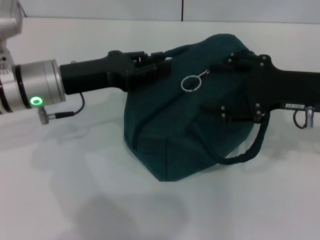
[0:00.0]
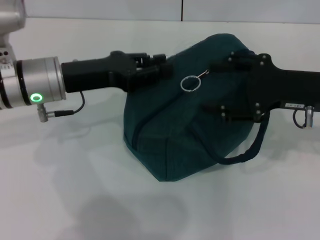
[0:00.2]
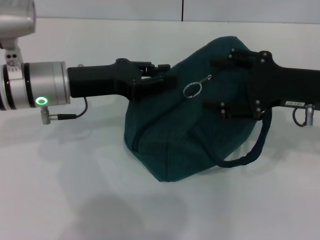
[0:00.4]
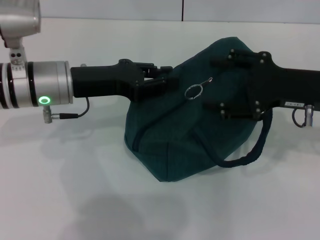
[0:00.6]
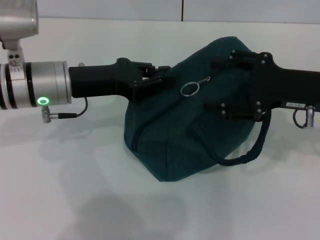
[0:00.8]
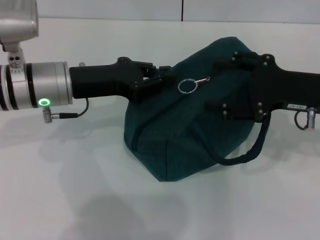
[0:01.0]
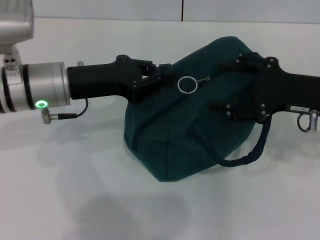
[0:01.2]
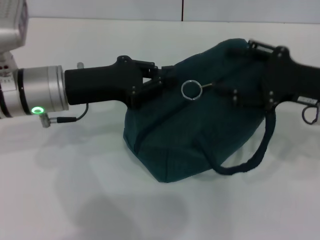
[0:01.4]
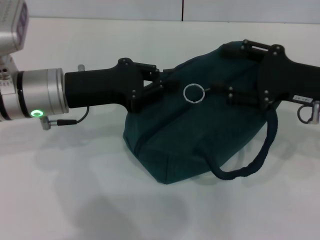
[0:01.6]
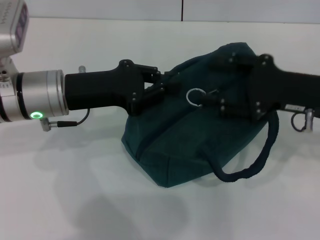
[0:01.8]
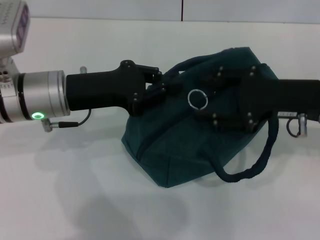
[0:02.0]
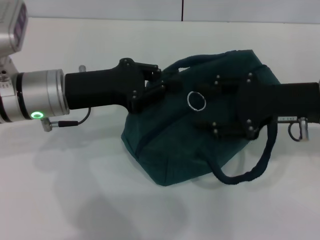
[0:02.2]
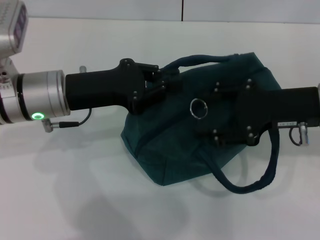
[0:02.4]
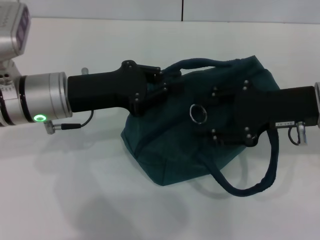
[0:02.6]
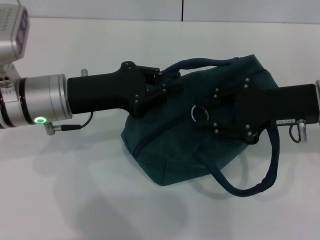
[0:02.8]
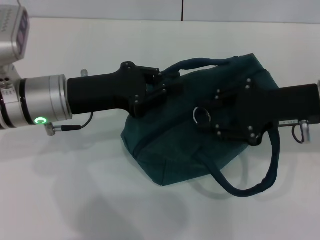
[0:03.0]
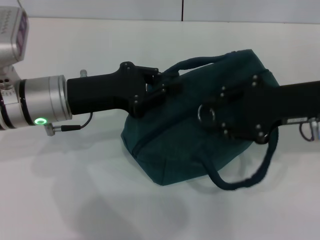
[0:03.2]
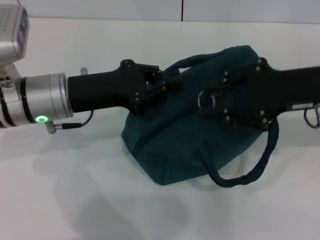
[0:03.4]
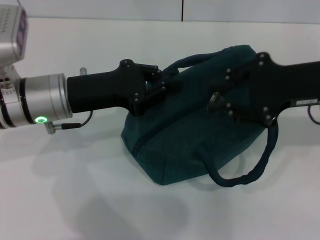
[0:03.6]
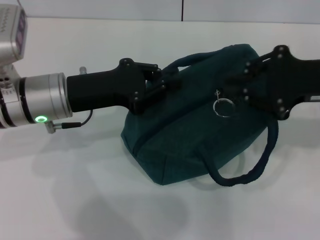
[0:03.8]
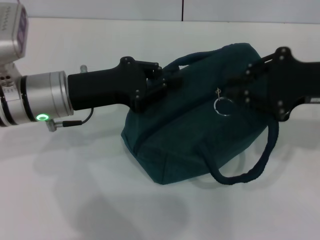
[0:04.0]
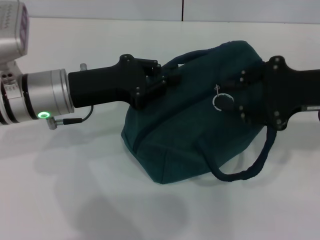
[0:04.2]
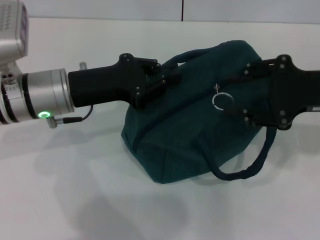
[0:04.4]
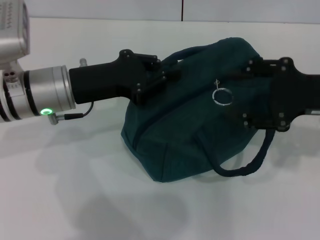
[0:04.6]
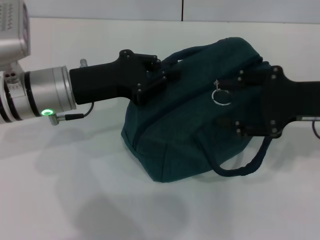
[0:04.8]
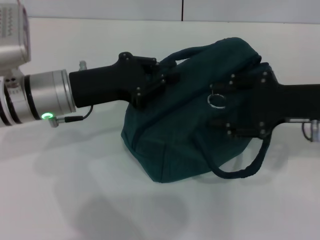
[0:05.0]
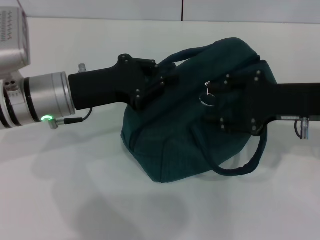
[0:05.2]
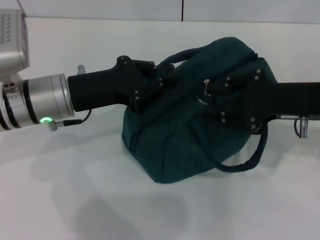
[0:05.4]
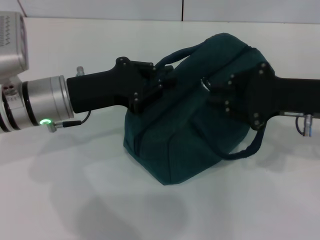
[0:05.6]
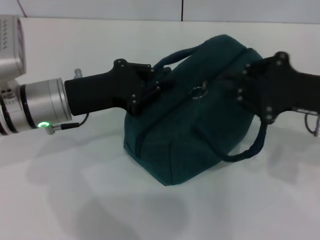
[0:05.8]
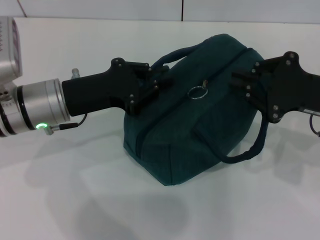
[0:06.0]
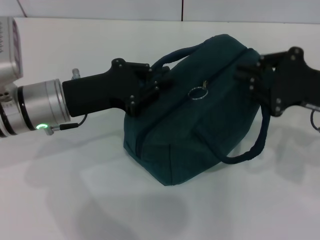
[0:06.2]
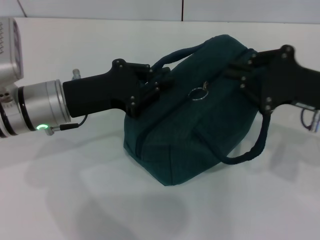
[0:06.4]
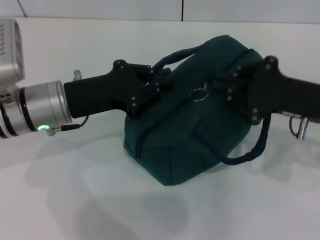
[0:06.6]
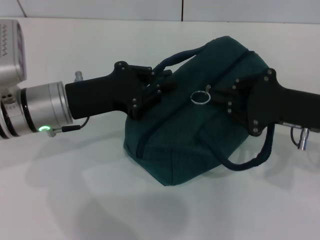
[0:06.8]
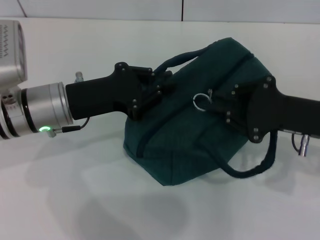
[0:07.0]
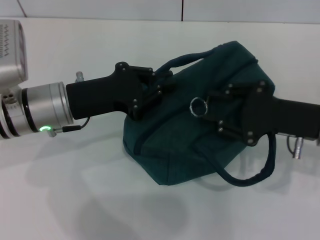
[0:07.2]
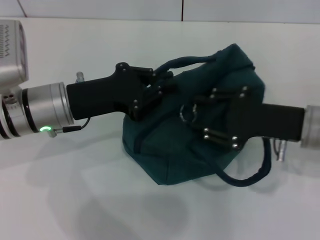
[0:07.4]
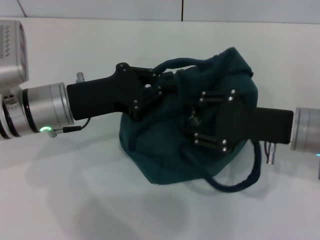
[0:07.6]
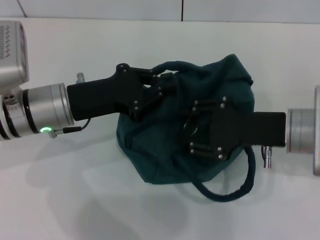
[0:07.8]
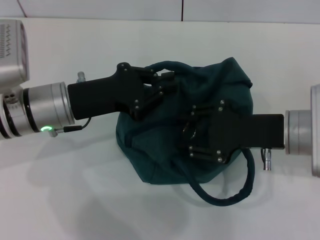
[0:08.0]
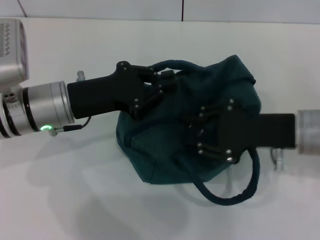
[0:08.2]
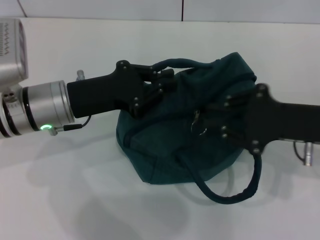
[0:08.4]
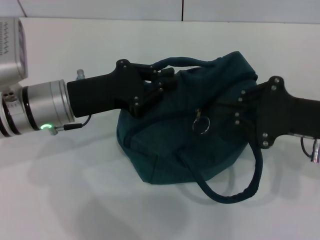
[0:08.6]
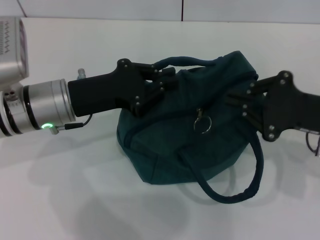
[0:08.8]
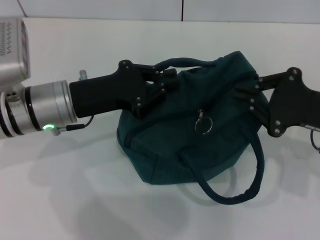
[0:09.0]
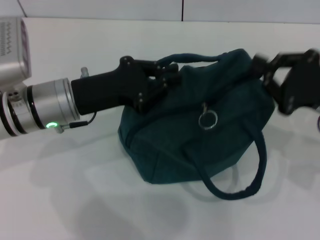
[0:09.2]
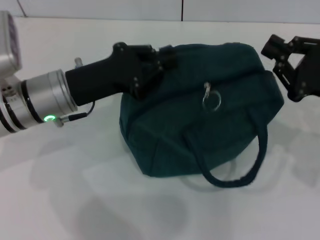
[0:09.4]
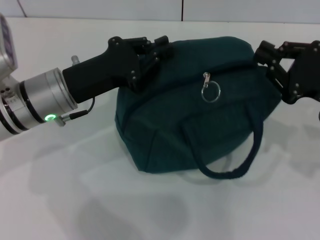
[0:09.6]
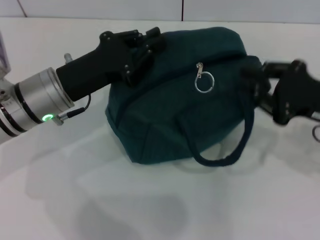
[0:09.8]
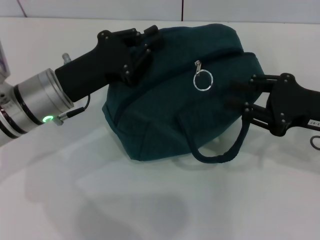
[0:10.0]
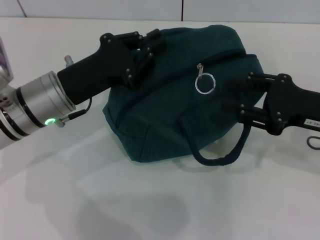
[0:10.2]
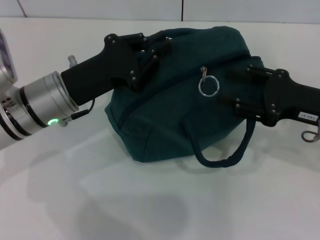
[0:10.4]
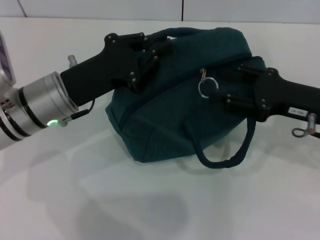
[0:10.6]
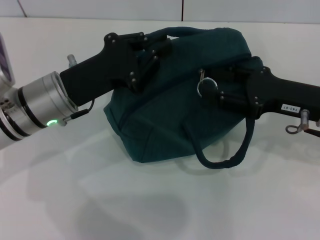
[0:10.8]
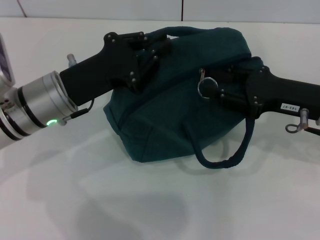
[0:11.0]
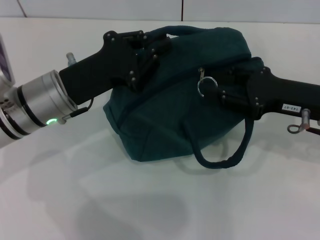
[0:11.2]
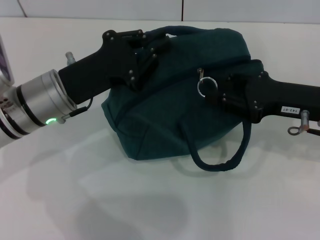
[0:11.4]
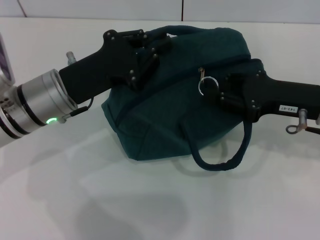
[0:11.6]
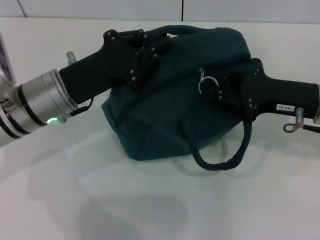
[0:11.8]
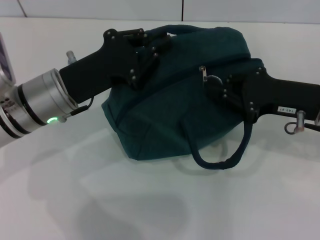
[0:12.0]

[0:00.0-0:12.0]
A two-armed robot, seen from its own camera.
0:00.0 to 0:01.6: There are only small adjustments of the grippers.
0:01.6 to 0:03.0: The right gripper closes.
0:03.0 to 0:04.4: The grippers move only a little.
0:04.4 to 0:06.0: The right gripper opens, then closes again.
0:06.0 to 0:07.6: The right gripper is displaced to the left by roughly 5 cm, and opens up.
0:07.6 to 0:09.0: The right gripper moves to the right, approximately 5 cm, and closes up.
0:09.0 to 0:10.4: The right gripper opens its fingers.
0:10.4 to 0:12.0: The right gripper closes up.

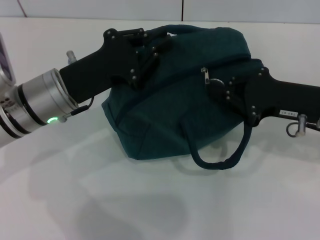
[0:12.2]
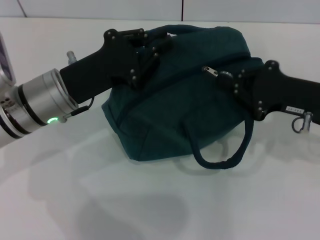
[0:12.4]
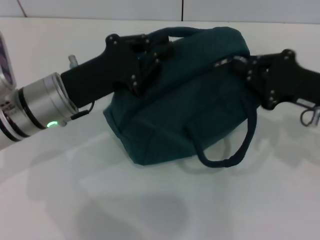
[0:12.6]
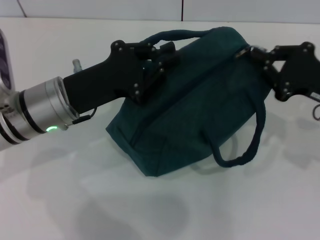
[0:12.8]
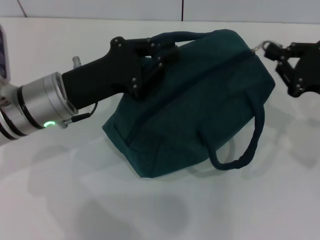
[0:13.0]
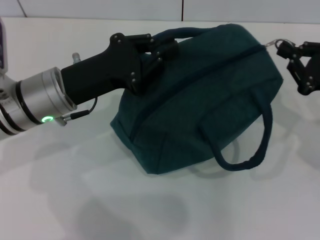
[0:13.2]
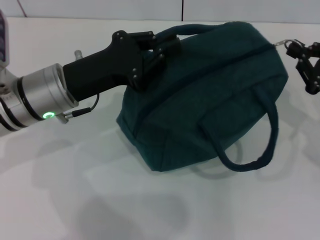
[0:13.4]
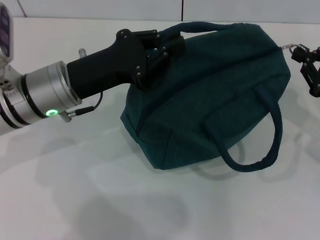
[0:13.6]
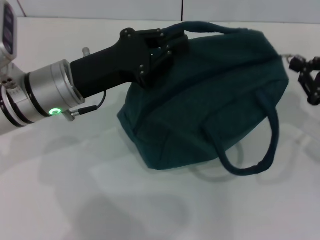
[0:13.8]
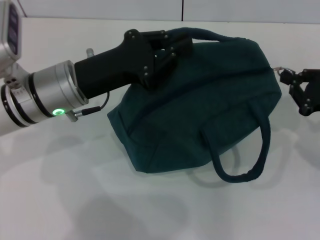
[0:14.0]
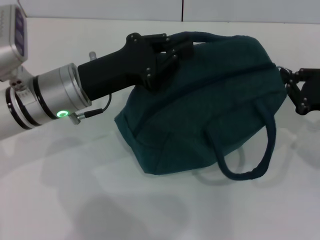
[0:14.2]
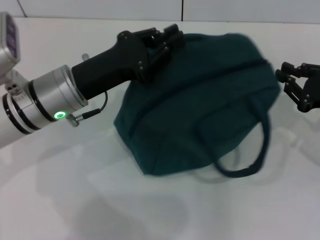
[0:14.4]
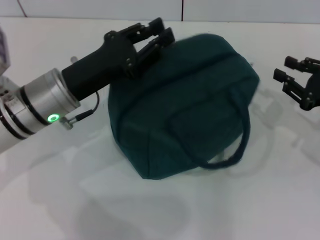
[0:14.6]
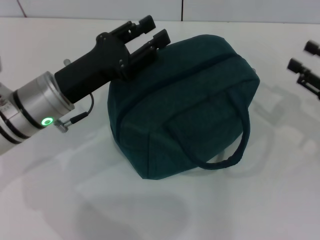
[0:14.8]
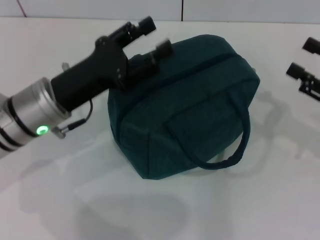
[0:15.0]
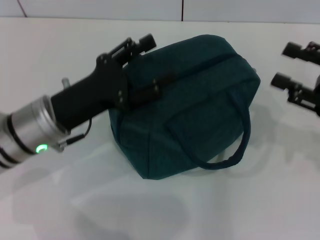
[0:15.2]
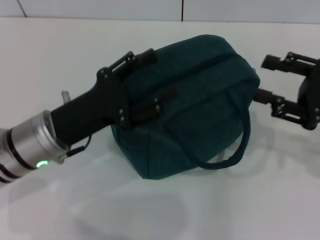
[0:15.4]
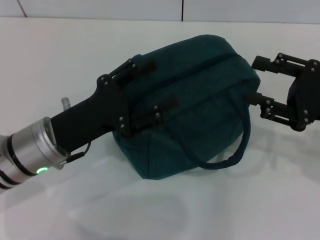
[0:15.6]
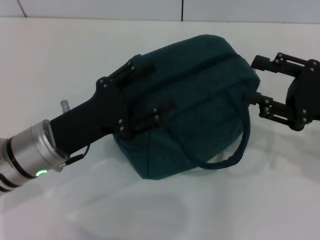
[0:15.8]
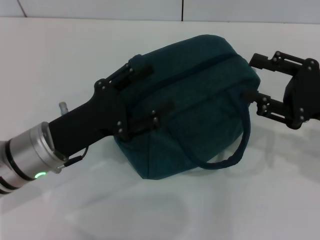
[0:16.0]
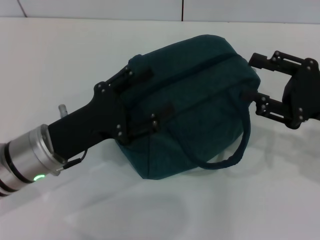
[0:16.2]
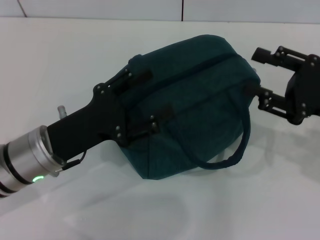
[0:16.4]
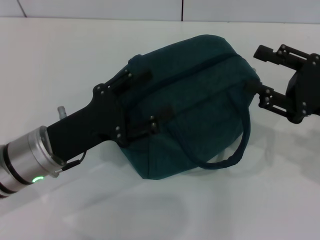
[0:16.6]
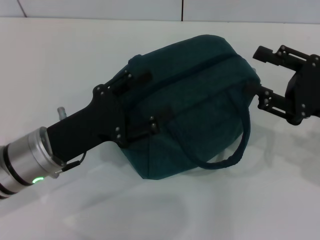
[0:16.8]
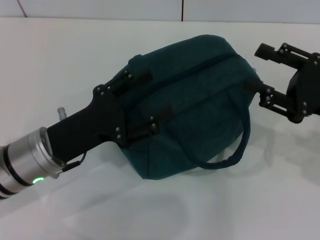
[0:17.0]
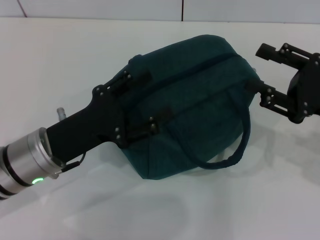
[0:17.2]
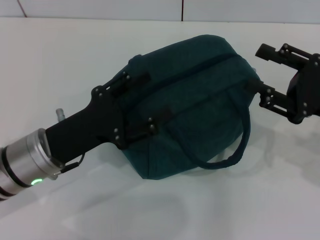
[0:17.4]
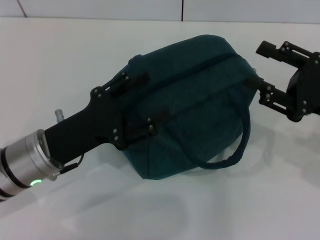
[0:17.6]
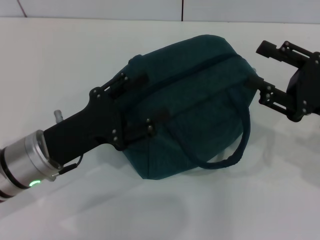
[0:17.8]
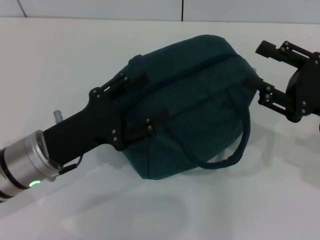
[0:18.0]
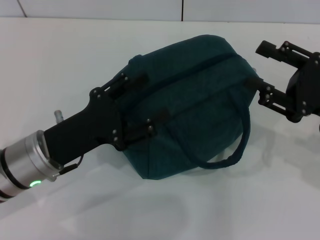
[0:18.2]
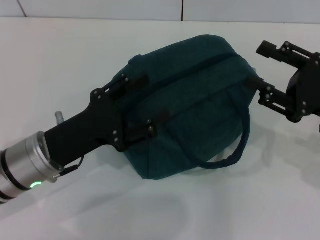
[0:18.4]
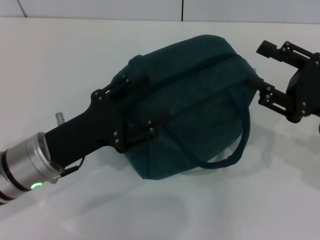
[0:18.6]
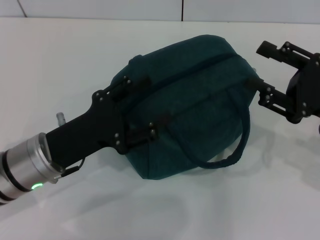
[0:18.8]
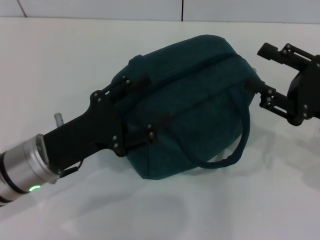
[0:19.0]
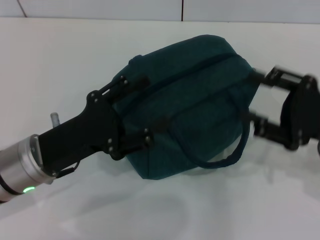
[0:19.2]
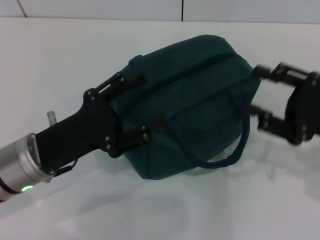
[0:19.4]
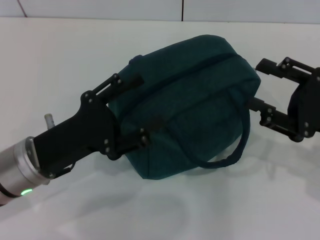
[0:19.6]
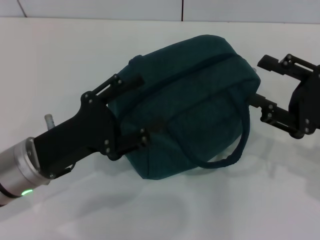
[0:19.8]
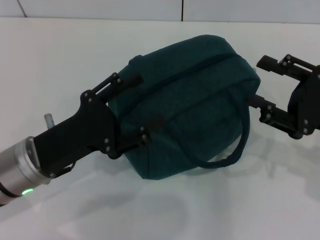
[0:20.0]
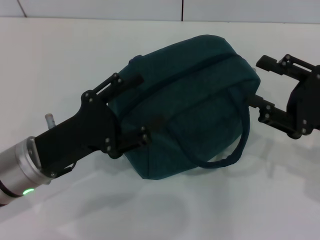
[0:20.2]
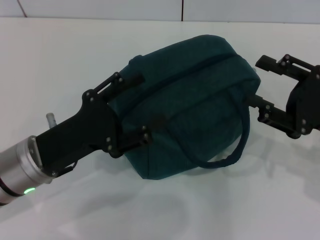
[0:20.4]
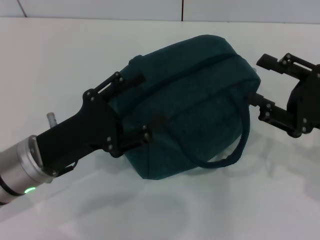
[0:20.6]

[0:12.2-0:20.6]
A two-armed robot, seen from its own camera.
Step, 0:12.2 to 0:14.4: Hold the lunch bag with your left hand.
0:12.2 to 0:13.6: The right gripper goes roughly 10 cm to the right.
0:13.6 to 0:15.0: The left gripper opens up; the right gripper opens its fingers.
0:15.0 to 0:16.4: The left gripper moves about 5 cm, and opens up; the right gripper moves to the left, about 5 cm.
0:16.4 to 0:17.8: Both grippers stay put.
0:17.8 to 0:20.6: The grippers stay close to where they were, moving slightly.

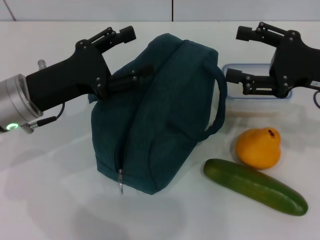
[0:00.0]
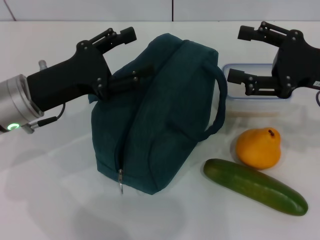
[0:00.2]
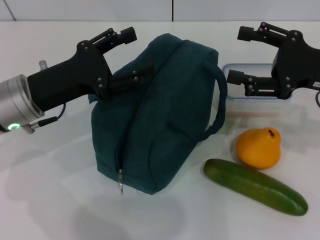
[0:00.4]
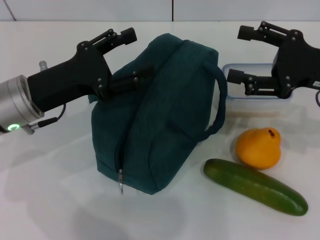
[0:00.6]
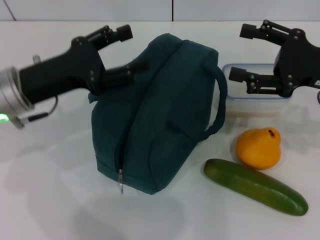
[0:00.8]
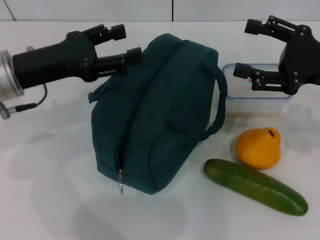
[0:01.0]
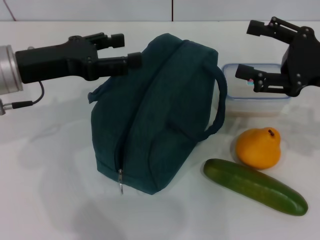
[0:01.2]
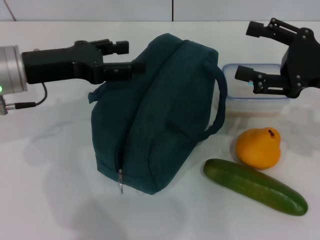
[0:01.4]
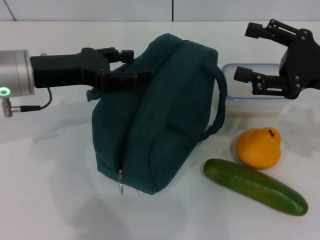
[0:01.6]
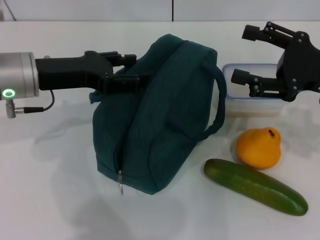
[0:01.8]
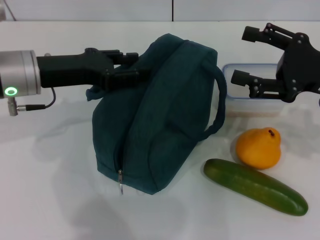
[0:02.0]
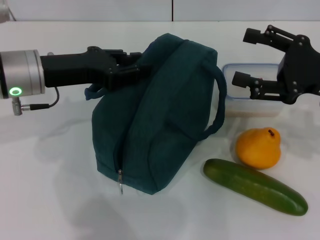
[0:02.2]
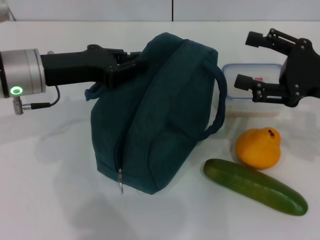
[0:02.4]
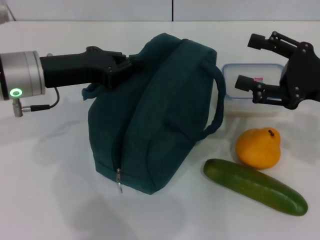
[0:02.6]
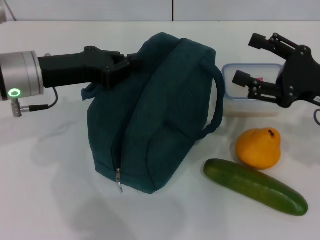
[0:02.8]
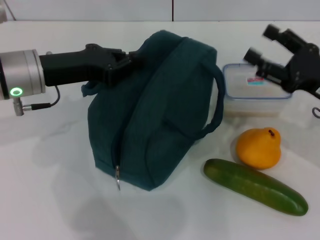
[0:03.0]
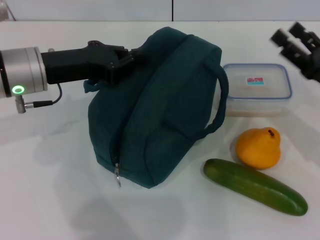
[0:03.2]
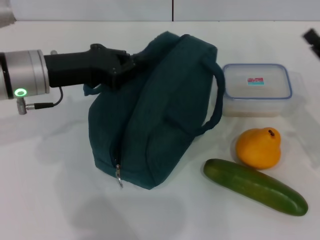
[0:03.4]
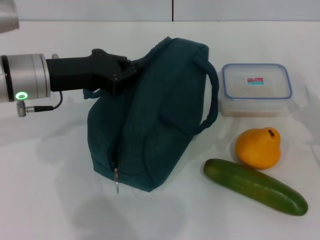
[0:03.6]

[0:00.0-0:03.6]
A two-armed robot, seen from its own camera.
0:01.8 to 0:03.6: The right gripper shifts some 10 cm downward and backward, while the left gripper closes up.
